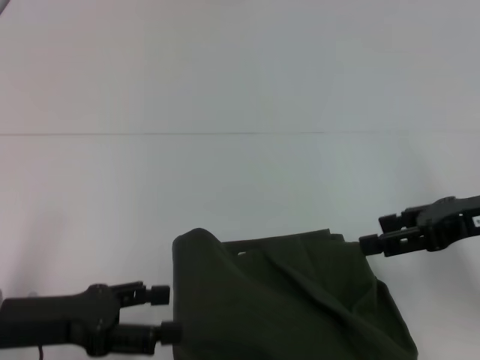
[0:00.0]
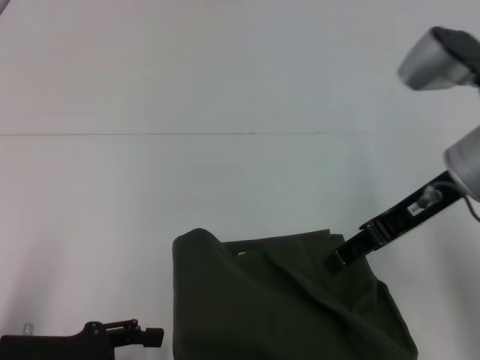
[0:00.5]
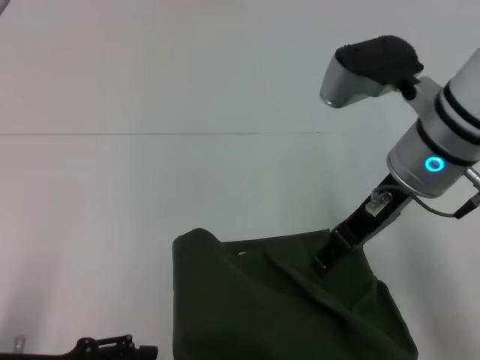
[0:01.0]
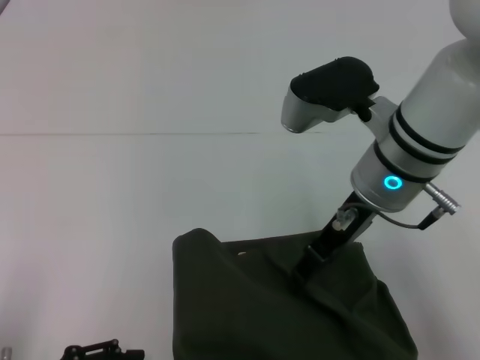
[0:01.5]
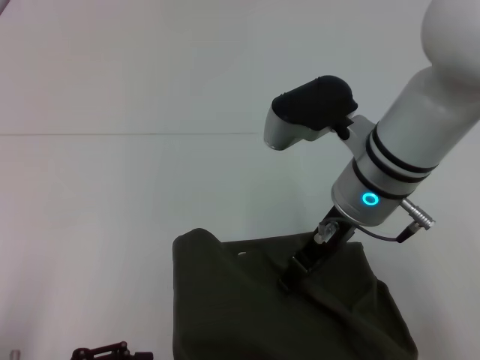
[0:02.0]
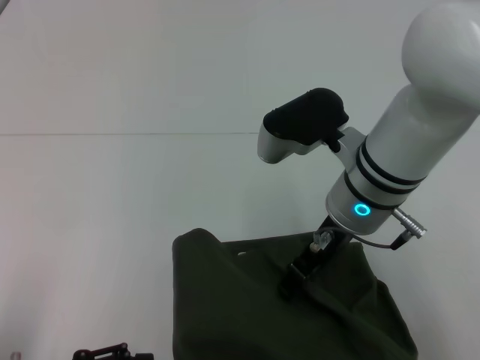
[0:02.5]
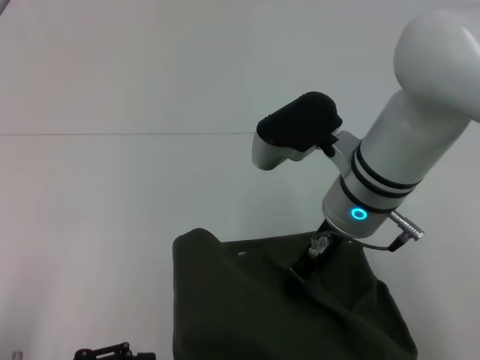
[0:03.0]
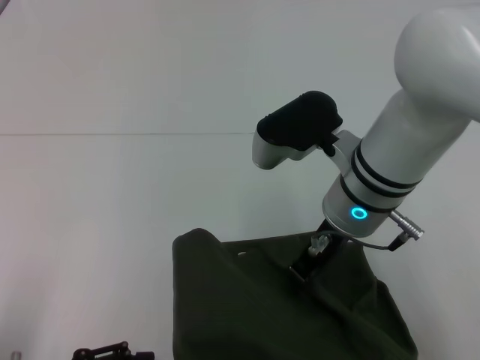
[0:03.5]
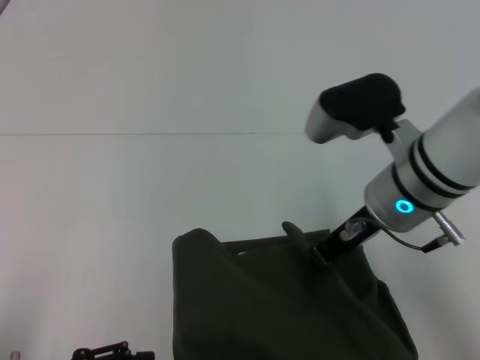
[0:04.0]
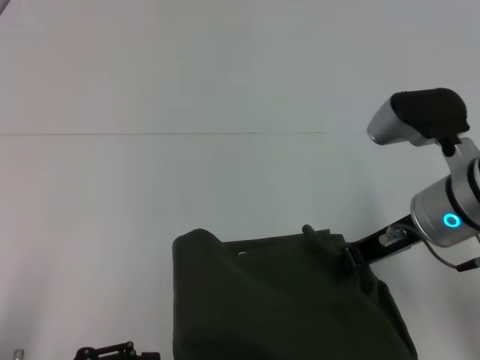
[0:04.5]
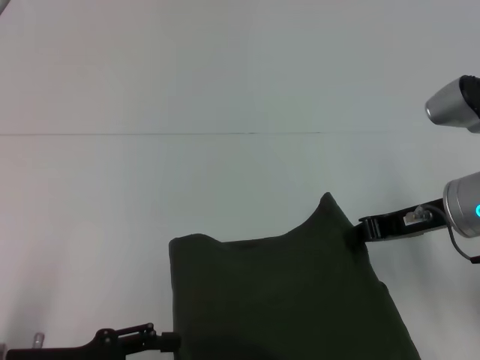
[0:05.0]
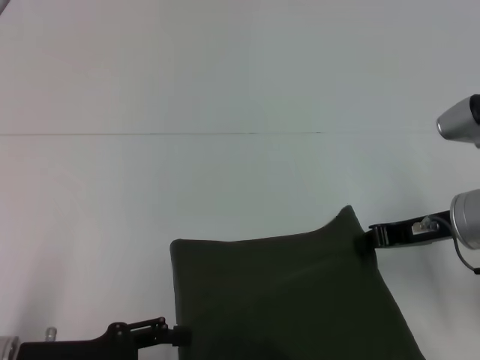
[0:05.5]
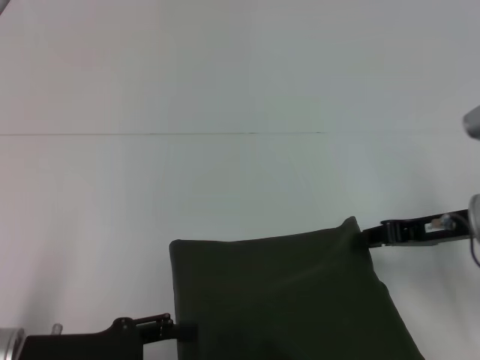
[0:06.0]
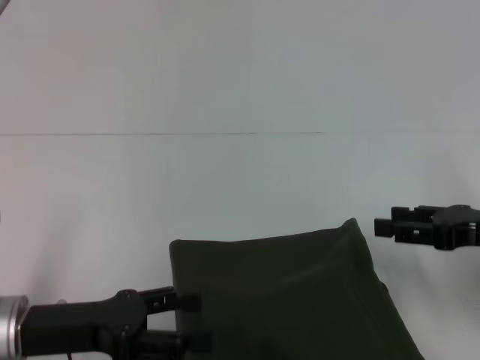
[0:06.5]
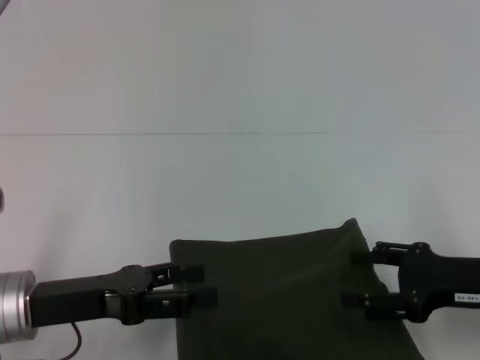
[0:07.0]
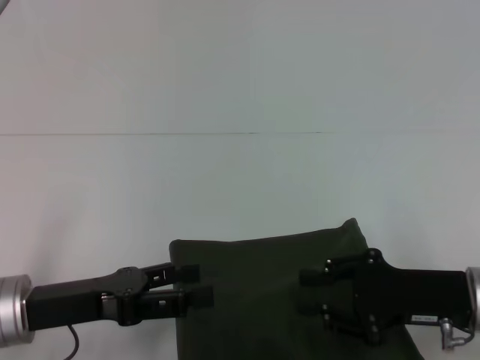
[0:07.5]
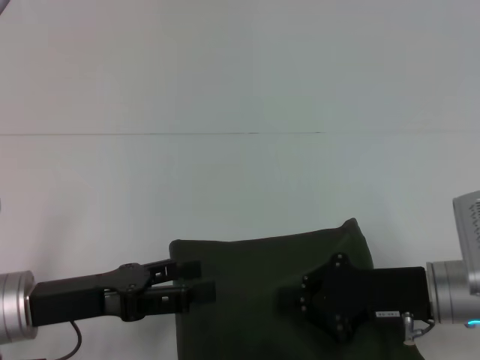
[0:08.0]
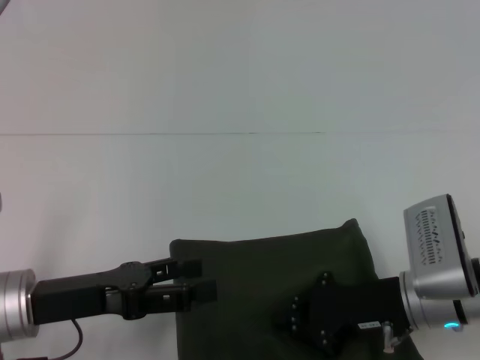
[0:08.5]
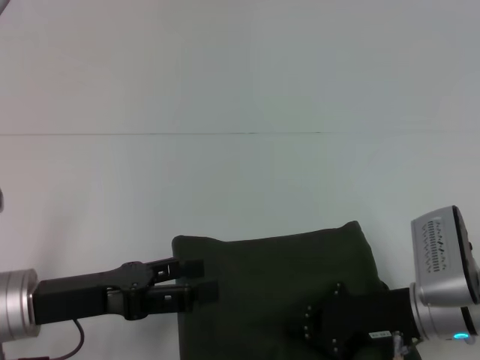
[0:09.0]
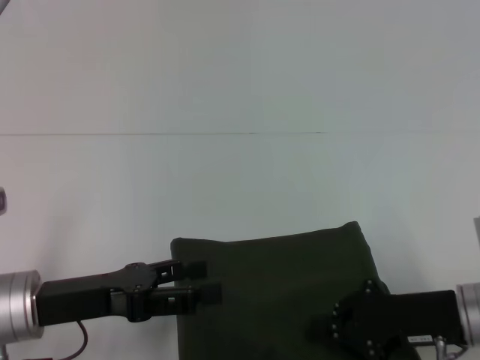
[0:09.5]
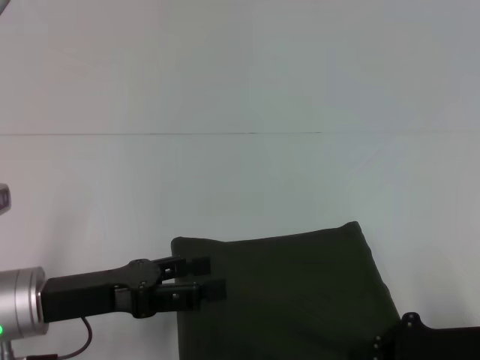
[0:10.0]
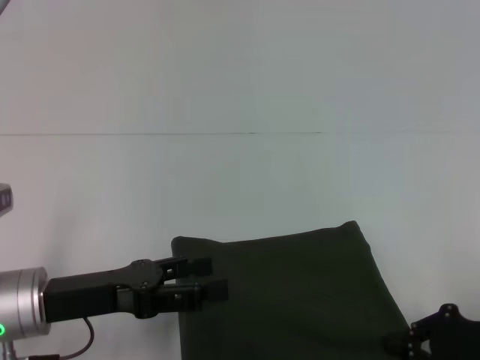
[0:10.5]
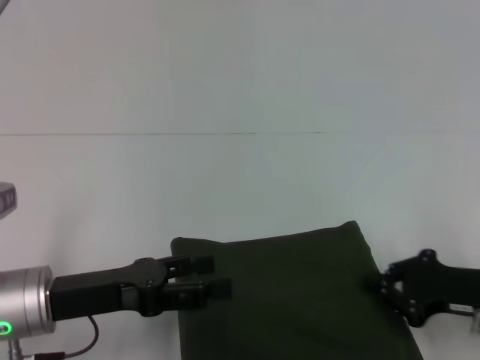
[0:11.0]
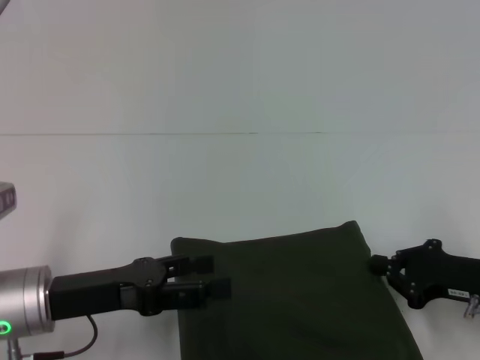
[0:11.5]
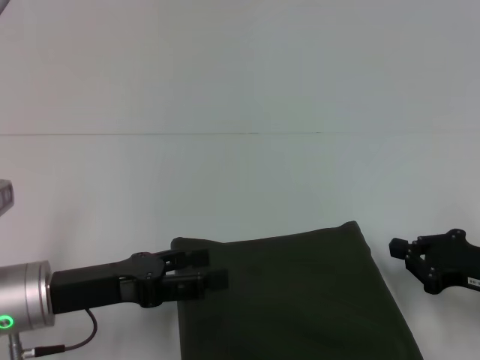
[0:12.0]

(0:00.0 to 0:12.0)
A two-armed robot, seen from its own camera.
0:00.0 - 0:02.0: The left gripper goes some 5 cm backward. Meanwhile the right gripper moves to the left, some 15 cm.
0:02.0 - 0:04.0: The right gripper closes.
0:04.0 - 0:06.0: The right gripper moves to the right and downward, about 15 cm.
0:06.0 - 0:08.0: The right gripper moves backward, roughly 5 cm, and opens, then closes again.
0:08.0 - 0:10.0: The right gripper goes roughly 5 cm to the right.
0:10.0 - 0:12.0: The right gripper shifts by roughly 5 cm.

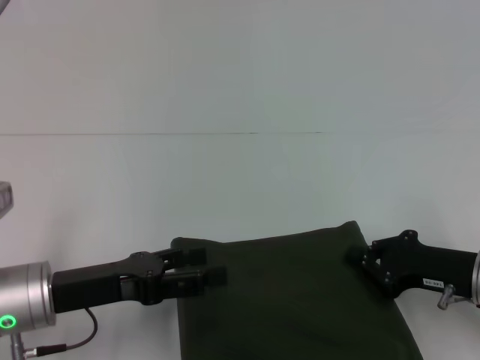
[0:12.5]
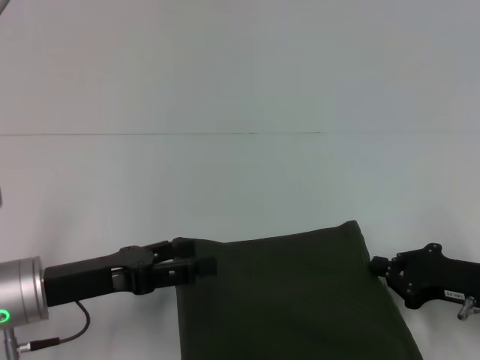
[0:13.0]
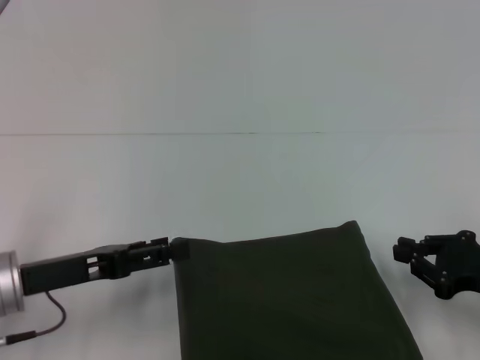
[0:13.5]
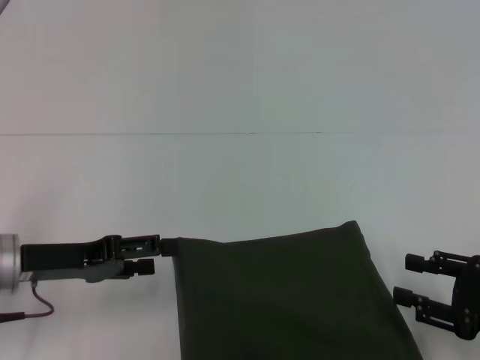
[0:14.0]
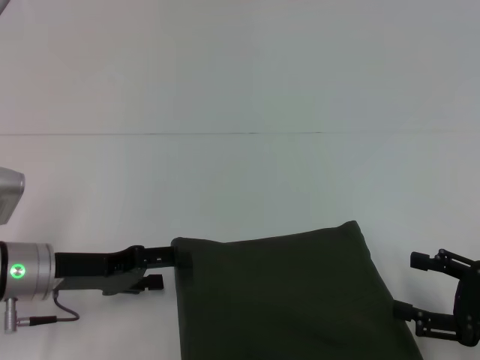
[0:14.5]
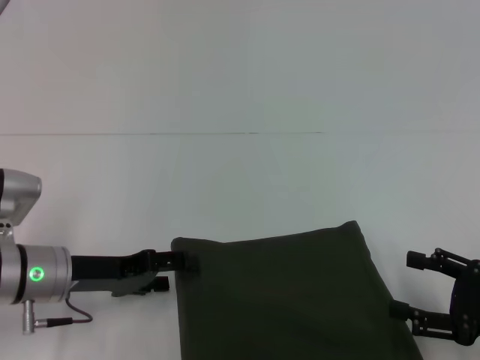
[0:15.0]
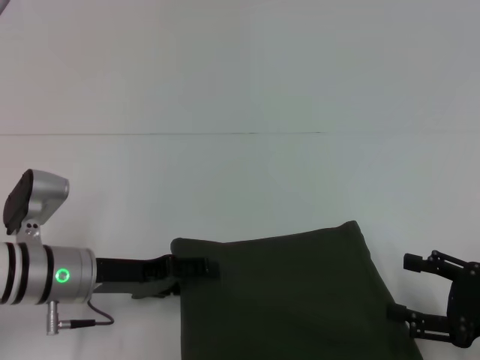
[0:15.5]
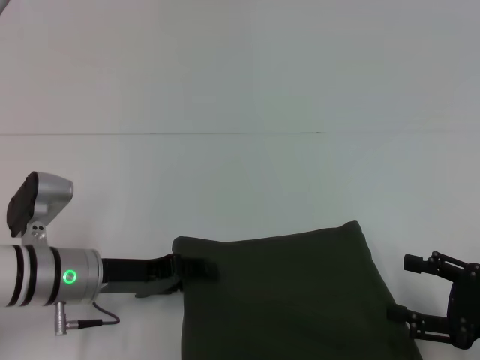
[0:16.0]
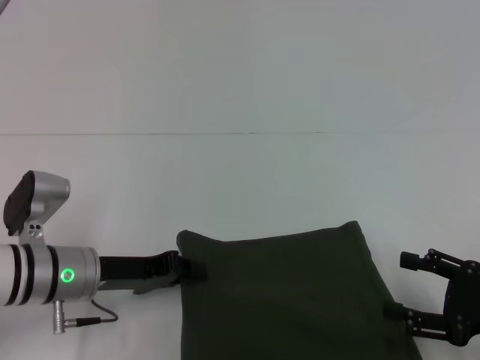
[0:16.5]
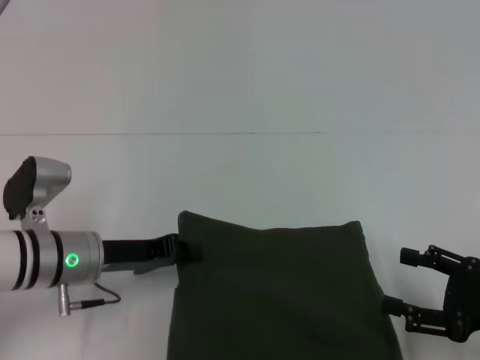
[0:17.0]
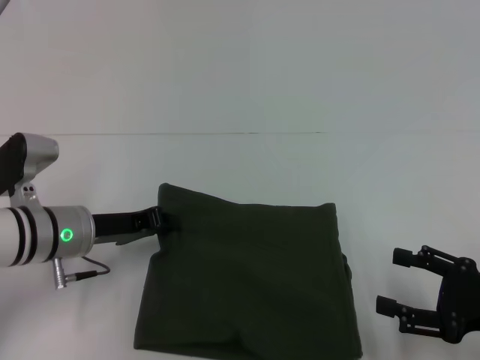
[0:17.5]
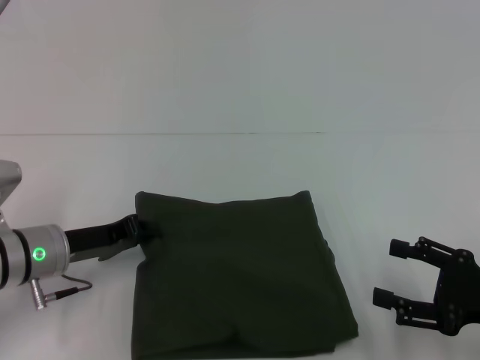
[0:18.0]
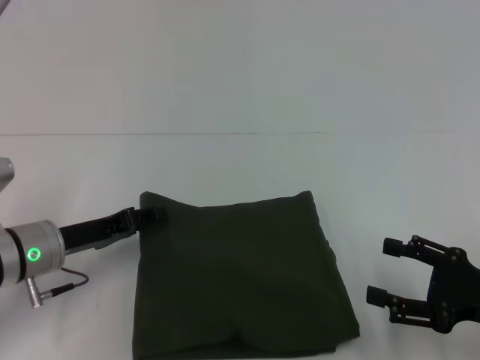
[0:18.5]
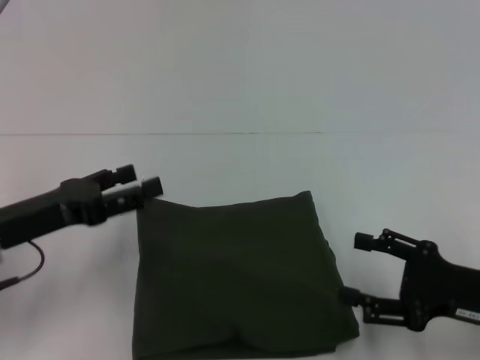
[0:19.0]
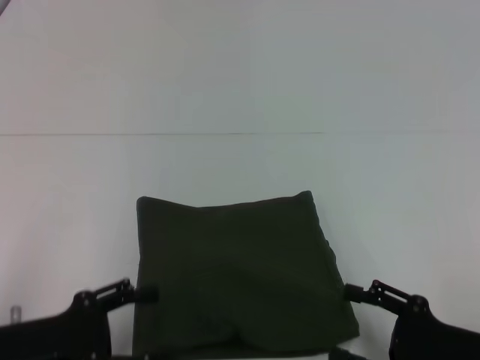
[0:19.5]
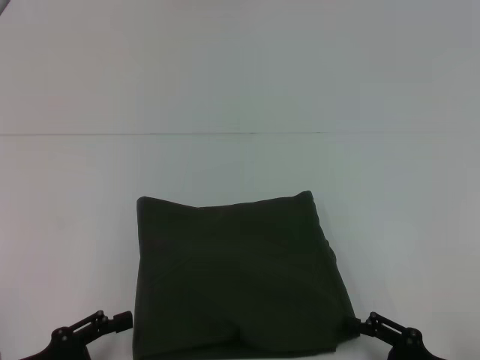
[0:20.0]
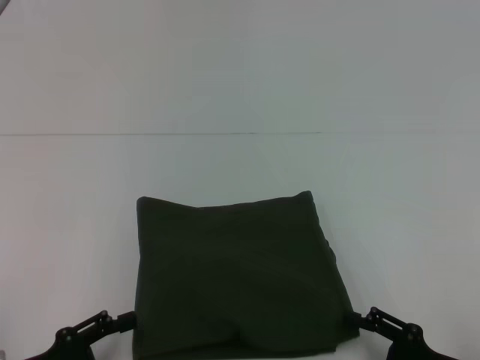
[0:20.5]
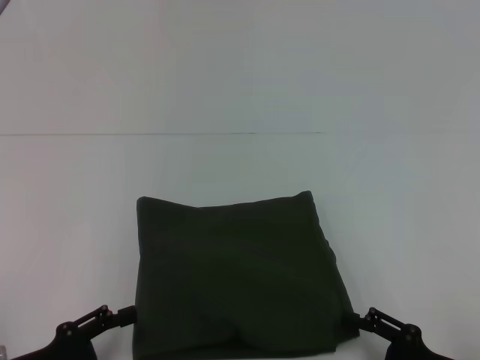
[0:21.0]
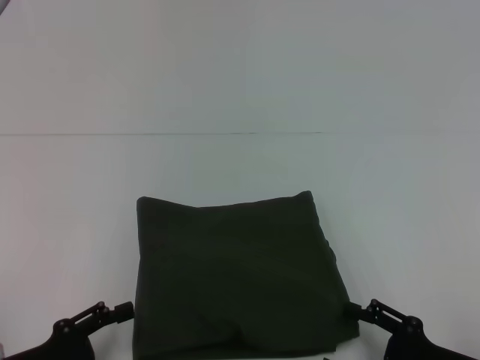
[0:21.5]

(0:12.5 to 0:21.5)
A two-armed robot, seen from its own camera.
0:12.5 - 0:14.5: The right gripper is displaced backward and to the right by approximately 10 cm, and opens its fingers.
0:14.5 - 0:17.0: The left gripper closes.
0:17.0 - 0:19.5: The right gripper moves about 5 cm. Meanwhile the left gripper is displaced backward and to the left by some 15 cm, and opens its fingers.
0:19.5 - 0:21.5: The left gripper moves roughly 5 cm.
